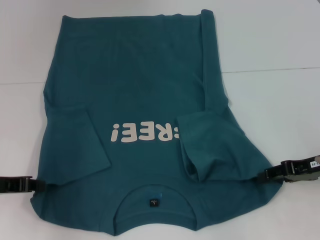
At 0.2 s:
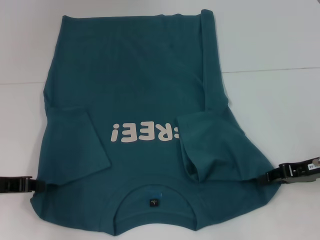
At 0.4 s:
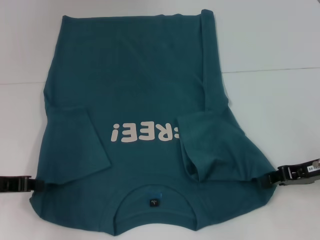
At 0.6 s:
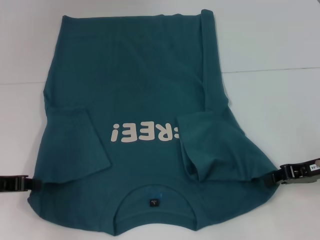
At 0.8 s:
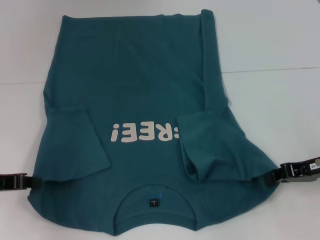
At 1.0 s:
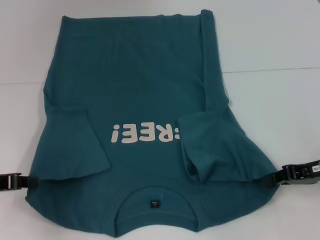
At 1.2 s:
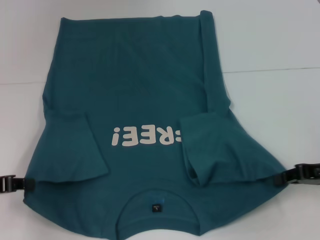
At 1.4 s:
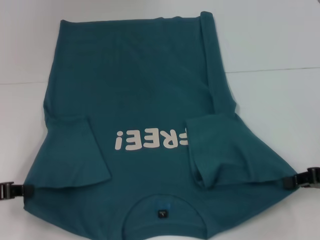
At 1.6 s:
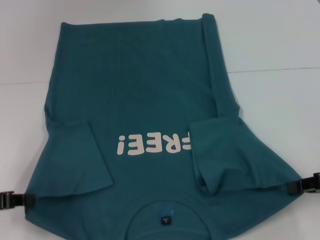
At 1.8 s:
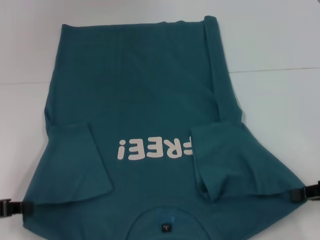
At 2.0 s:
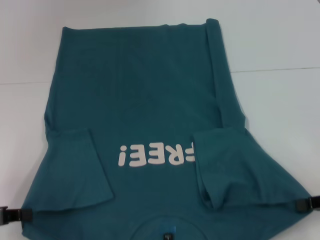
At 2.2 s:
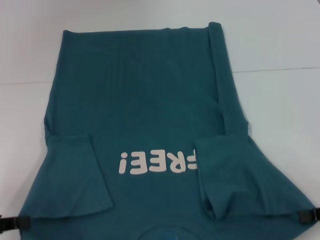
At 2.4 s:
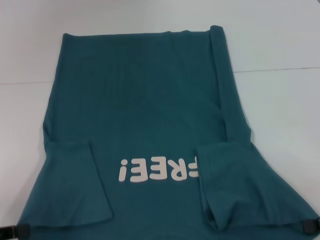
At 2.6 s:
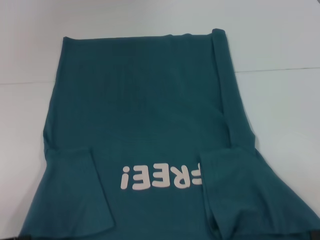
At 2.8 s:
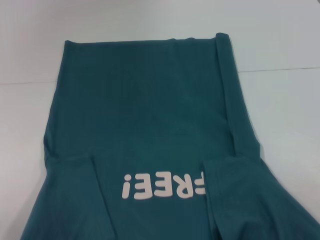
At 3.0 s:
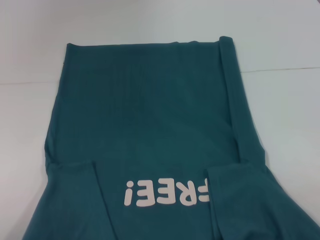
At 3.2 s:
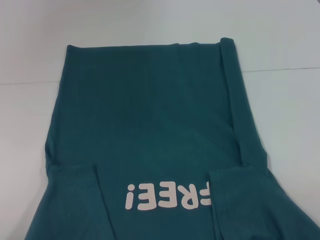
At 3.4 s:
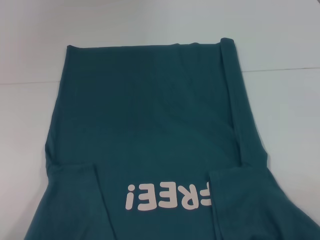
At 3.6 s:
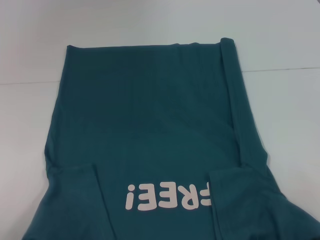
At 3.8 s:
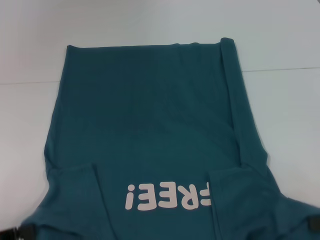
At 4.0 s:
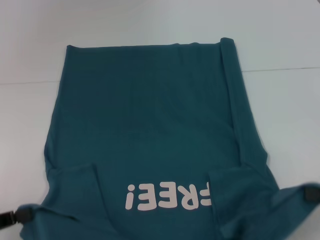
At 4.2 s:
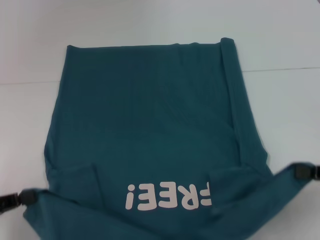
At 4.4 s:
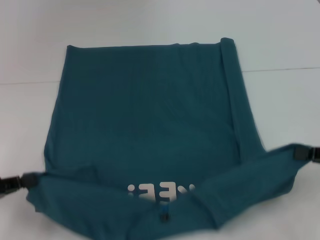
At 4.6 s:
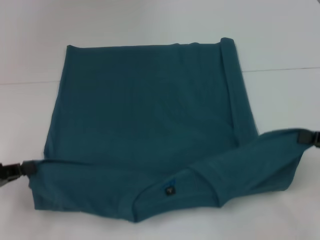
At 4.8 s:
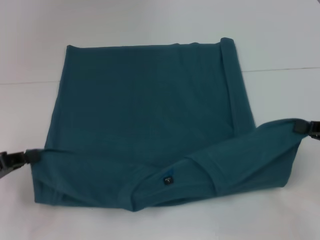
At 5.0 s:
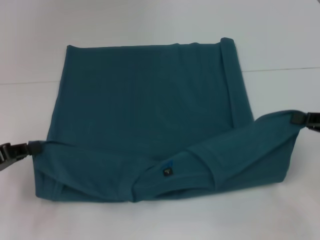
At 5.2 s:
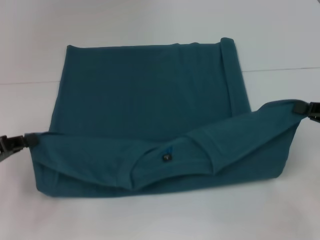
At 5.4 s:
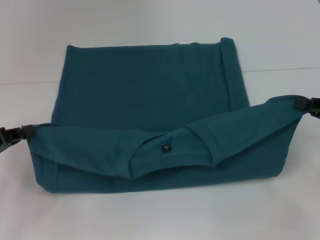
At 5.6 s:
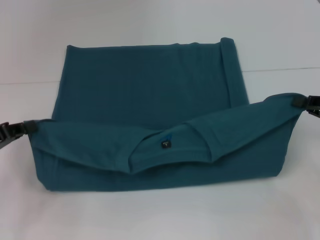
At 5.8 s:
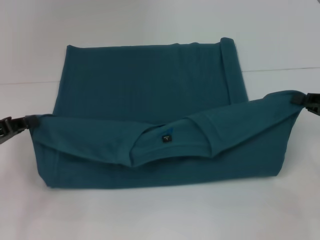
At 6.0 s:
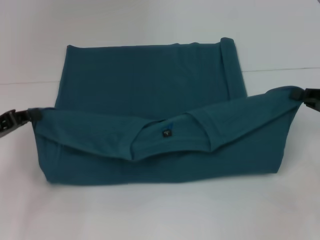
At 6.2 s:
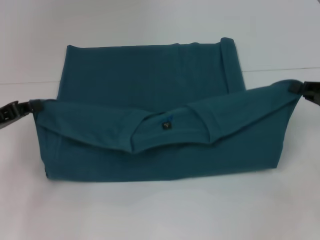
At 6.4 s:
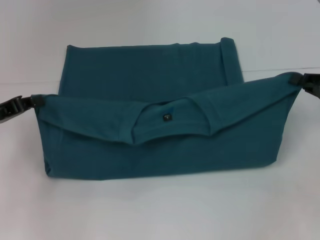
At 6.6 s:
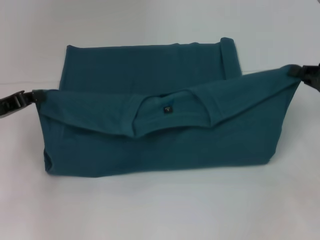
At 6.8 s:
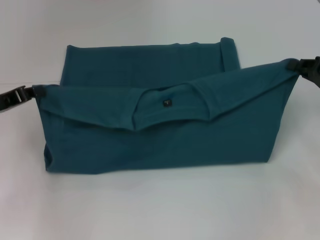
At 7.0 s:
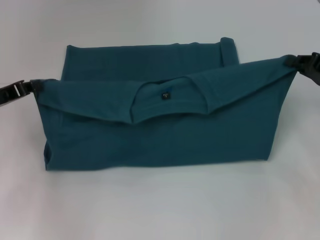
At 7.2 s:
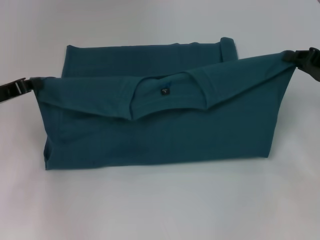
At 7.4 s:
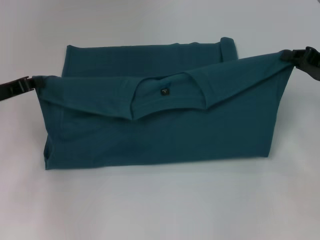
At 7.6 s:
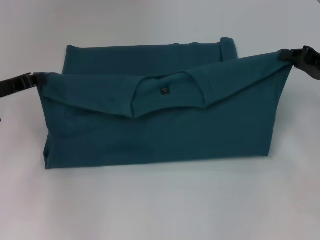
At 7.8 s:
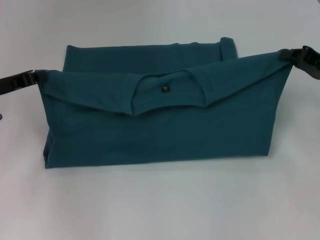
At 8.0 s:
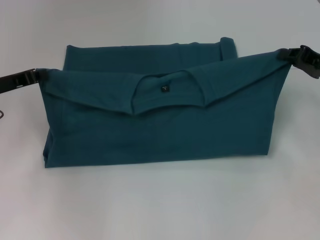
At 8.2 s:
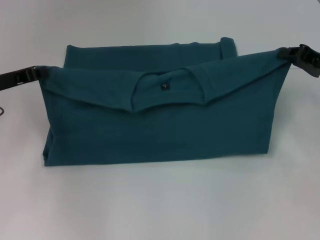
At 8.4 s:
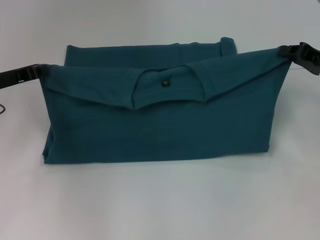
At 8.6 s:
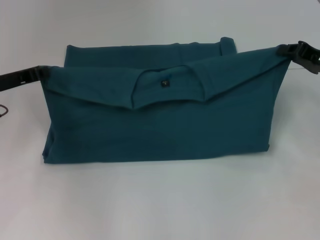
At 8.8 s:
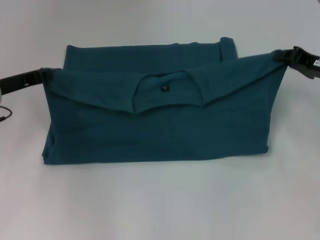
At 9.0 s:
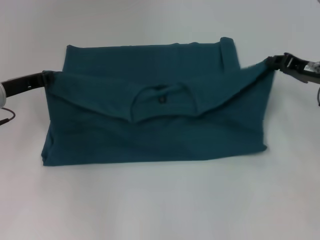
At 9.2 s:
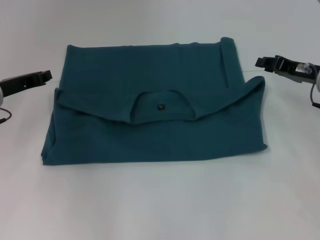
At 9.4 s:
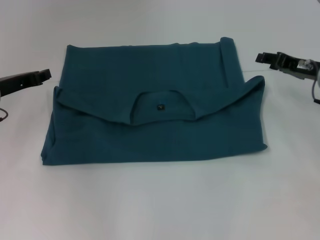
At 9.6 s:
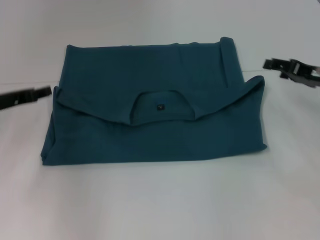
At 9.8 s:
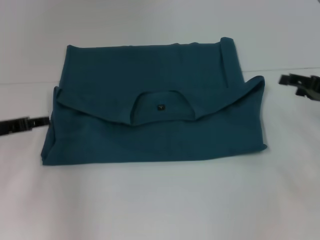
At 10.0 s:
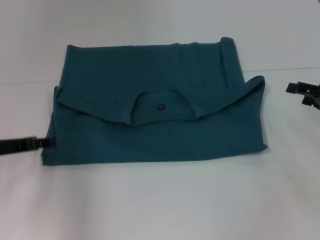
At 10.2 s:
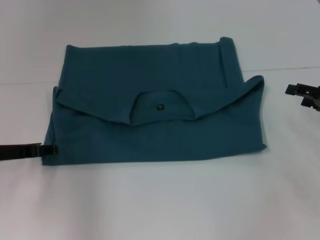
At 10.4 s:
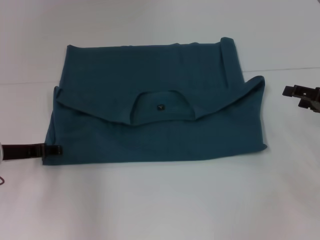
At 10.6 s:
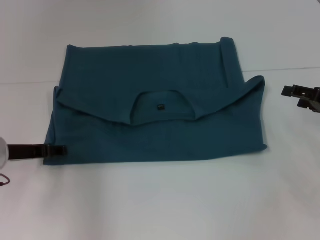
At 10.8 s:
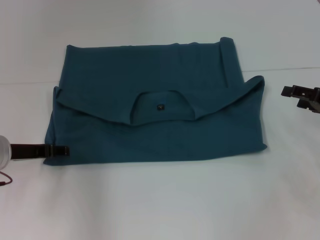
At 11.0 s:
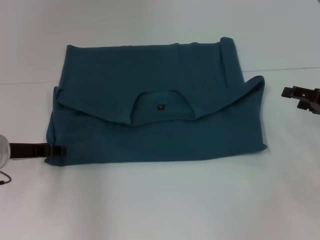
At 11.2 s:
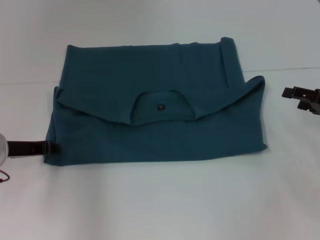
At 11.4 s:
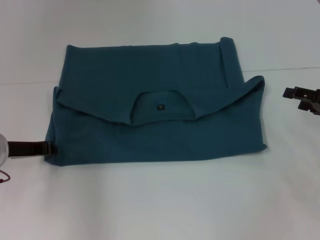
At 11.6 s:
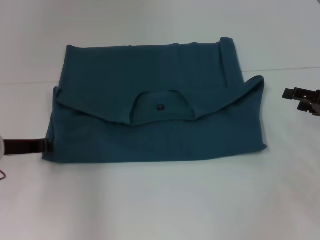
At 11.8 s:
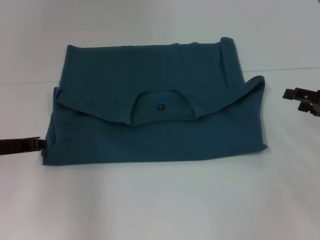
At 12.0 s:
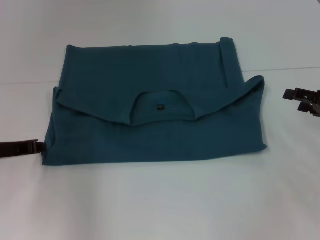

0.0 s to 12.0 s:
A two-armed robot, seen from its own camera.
Step, 0.8 to 9.4 s: Fold the clothes to the left.
Step, 0.8 to 9.4 s: Fold the clothes to the right.
0.0 to 1.6 s: The right gripper travels backward by about 5 cm, and closes its fingers.
1.6 to 3.0 s: Both grippers travel together backward, approximately 10 cm.
3.0 to 4.4 s: Both grippers move forward, approximately 10 cm.
4.4 to 6.0 s: Both grippers travel together forward, roughly 5 cm.
6.0 to 7.6 s: The grippers both shift forward by about 5 cm.
7.6 to 9.0 s: The grippers make only small movements.
9.0 to 10.4 s: The two grippers go about 5 cm backward. The left gripper opens its fingers. The right gripper opens up.
10.4 to 12.0 s: The left gripper closes its fingers.

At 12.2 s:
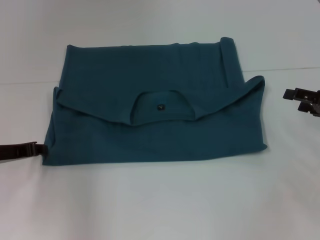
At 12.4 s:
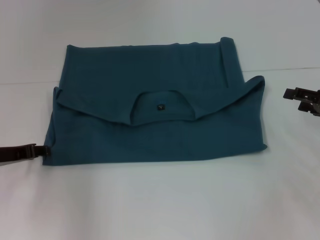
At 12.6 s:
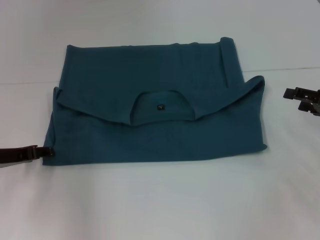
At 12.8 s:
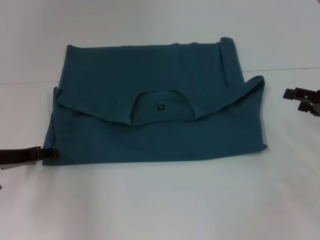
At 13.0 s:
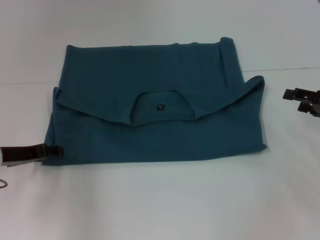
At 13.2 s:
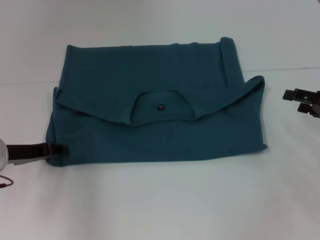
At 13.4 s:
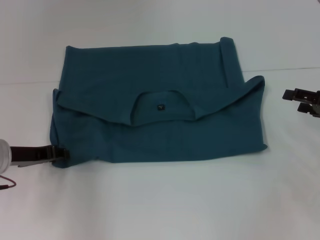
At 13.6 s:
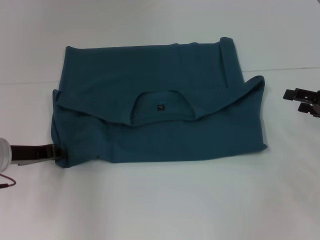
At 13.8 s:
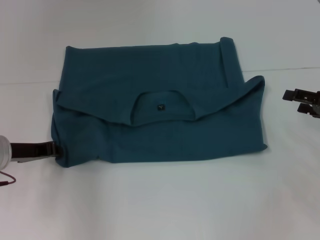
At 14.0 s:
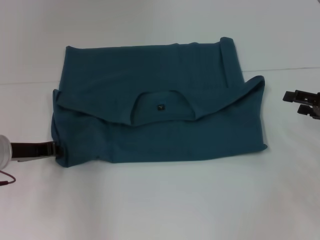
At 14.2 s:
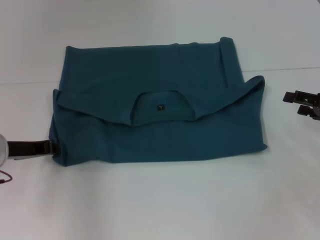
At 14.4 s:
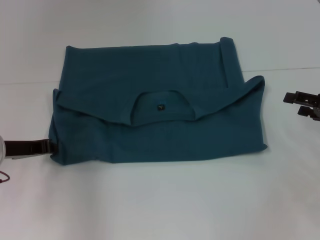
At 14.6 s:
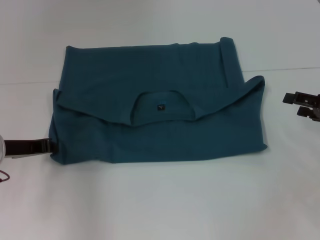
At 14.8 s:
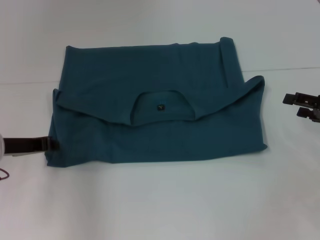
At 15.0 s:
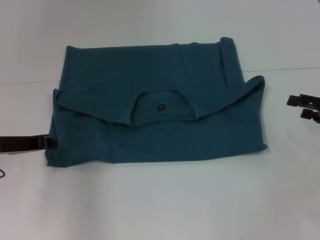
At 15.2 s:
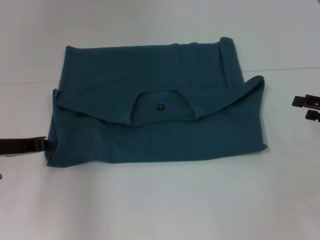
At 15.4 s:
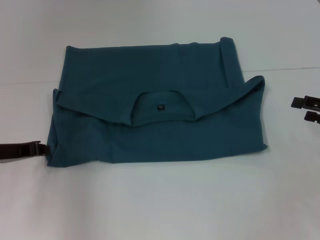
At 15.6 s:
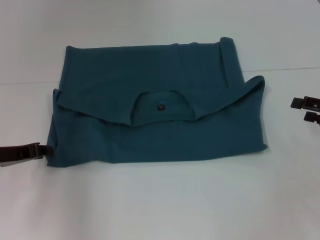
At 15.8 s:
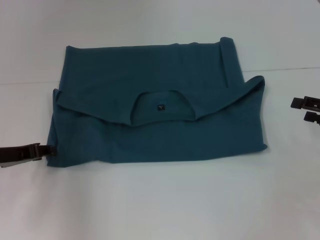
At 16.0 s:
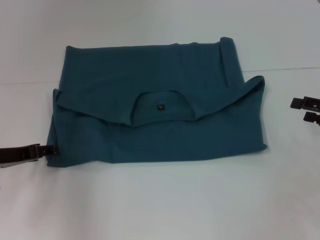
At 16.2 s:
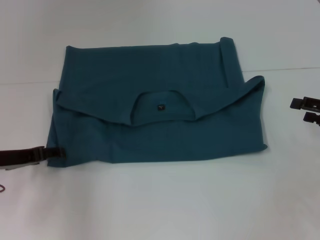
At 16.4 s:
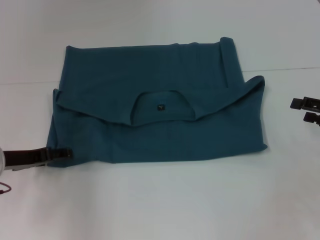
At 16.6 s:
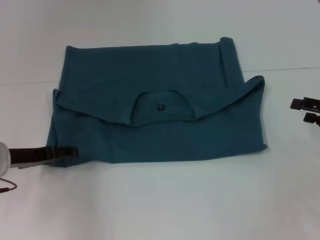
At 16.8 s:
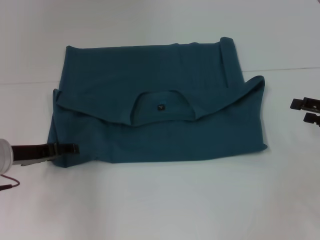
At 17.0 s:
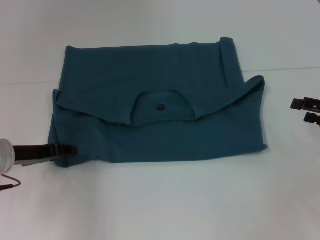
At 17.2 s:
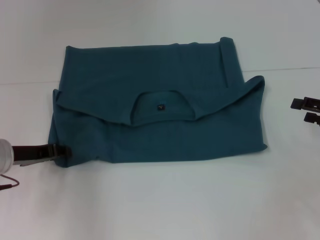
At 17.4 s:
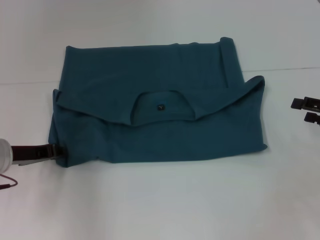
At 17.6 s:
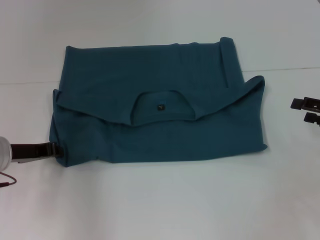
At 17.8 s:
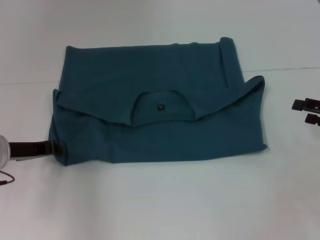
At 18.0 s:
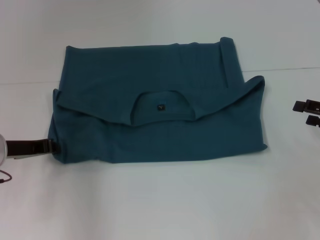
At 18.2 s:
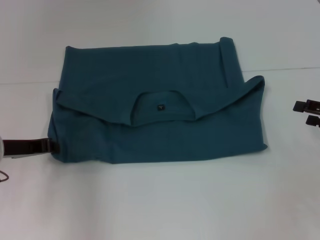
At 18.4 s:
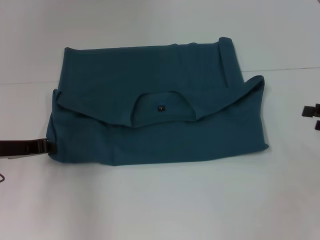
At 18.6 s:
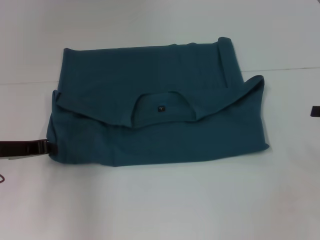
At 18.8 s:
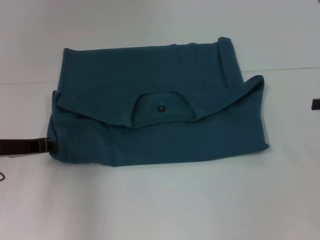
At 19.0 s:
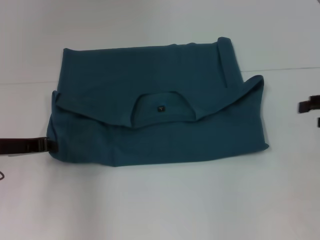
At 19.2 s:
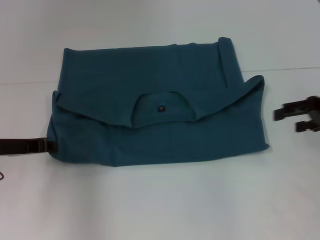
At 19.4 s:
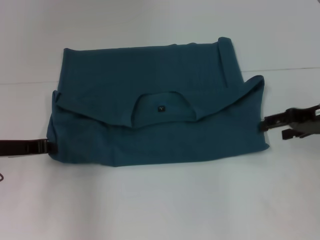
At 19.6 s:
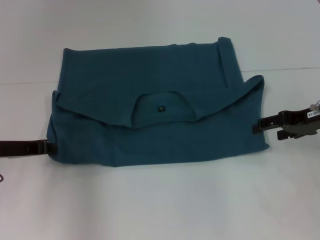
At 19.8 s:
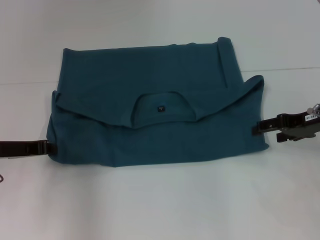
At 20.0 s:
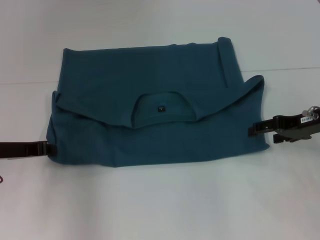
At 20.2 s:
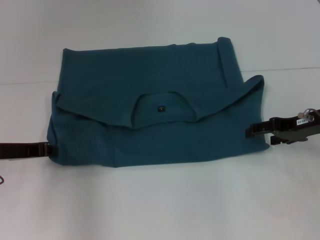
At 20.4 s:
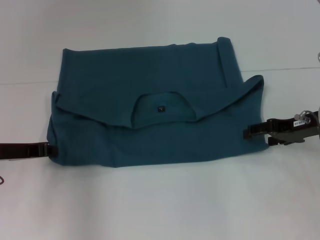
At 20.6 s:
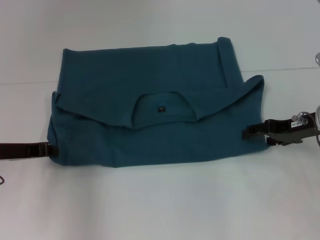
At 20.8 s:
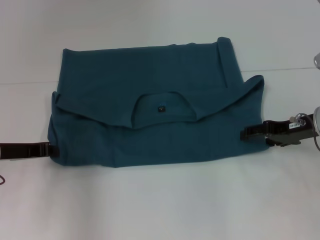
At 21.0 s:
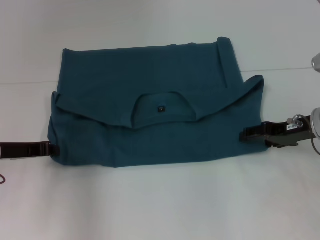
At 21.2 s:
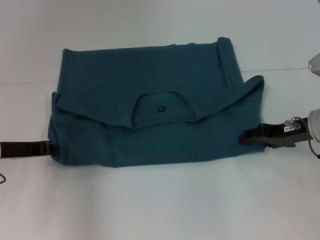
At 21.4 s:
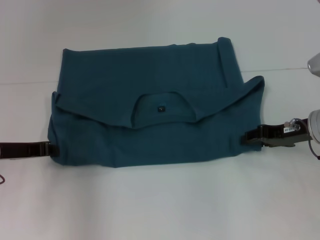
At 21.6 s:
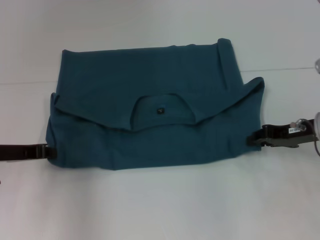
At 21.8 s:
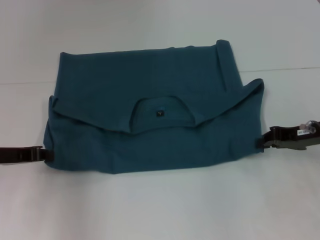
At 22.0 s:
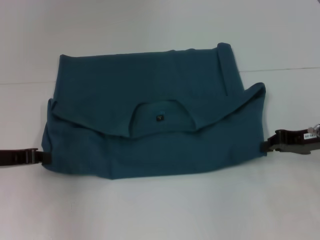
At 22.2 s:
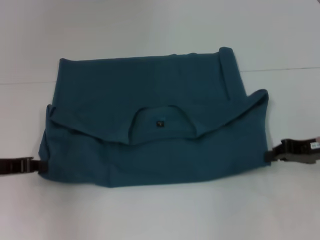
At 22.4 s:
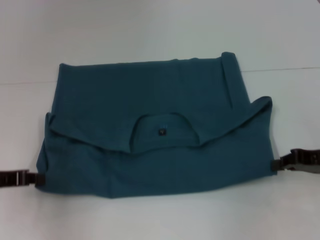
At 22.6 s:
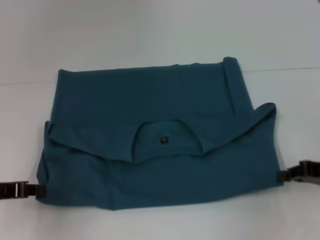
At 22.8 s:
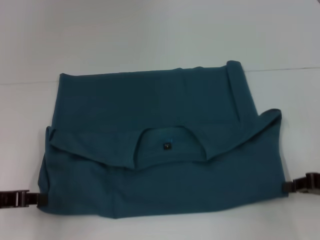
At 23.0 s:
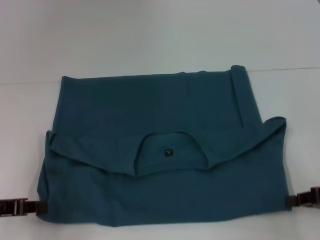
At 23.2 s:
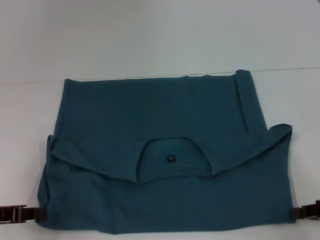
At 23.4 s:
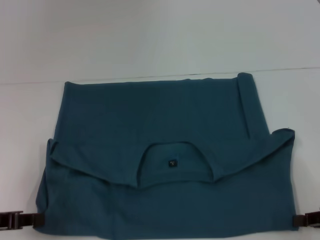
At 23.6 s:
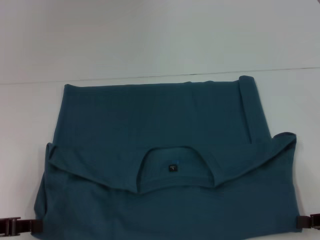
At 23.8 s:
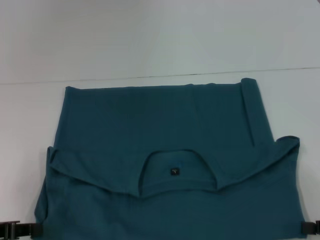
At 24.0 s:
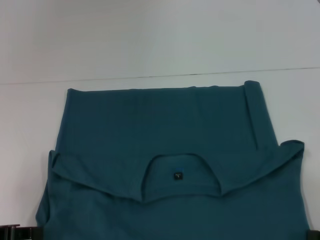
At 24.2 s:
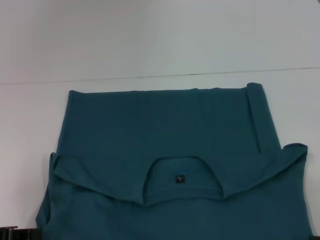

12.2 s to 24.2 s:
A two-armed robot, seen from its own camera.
12.2 to 13.8 s: The left gripper opens, then closes again.
13.8 to 15.2 s: There are only small adjustments of the grippers.
15.2 to 16.6 s: The left gripper opens its fingers.
16.6 to 18.2 s: The left gripper closes up.
18.2 to 19.8 s: The right gripper shifts about 10 cm to the left and forward.
19.8 to 21.2 s: The grippers make only small movements.
21.2 to 22.6 s: The left gripper shifts approximately 5 cm backward; the right gripper travels backward and to the right by approximately 10 cm, and closes.
22.6 to 24.2 s: The right gripper is displaced backward by some 10 cm; the left gripper heads backward, covering some 5 cm.
